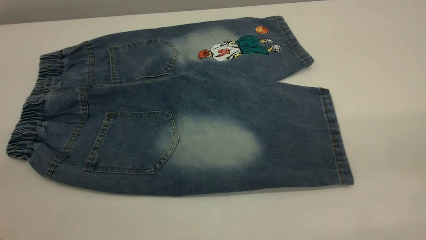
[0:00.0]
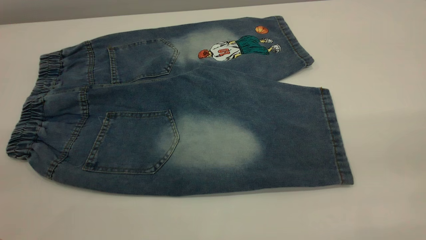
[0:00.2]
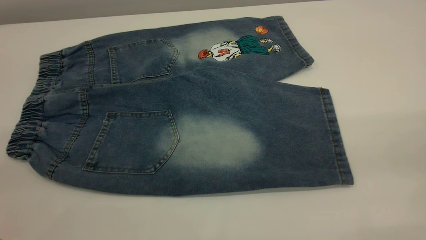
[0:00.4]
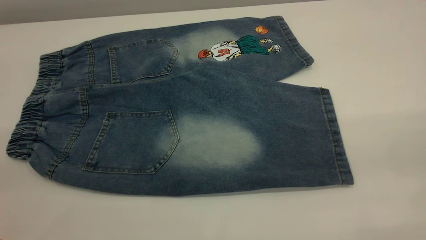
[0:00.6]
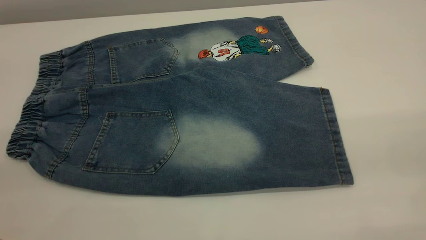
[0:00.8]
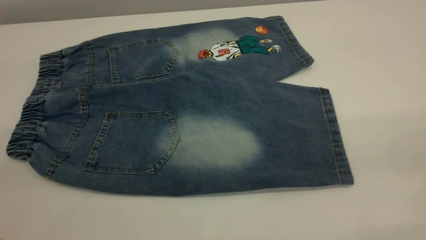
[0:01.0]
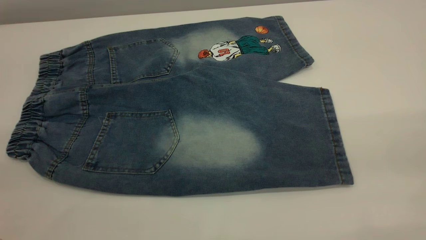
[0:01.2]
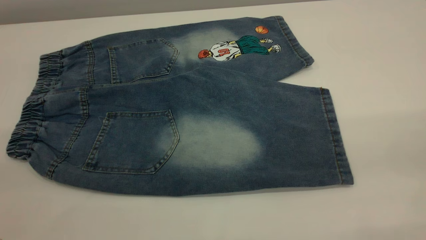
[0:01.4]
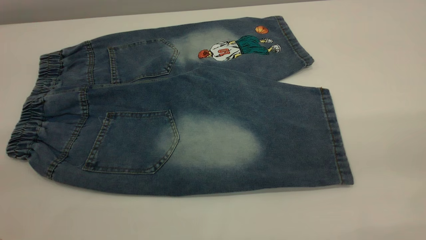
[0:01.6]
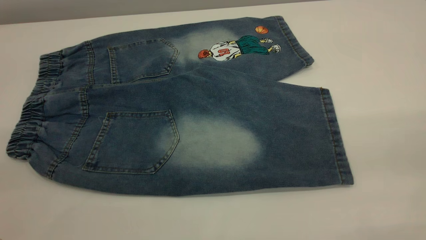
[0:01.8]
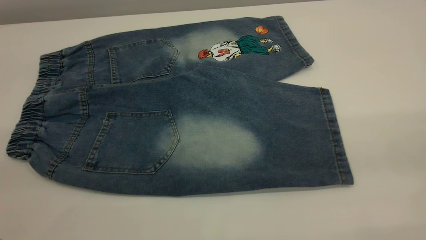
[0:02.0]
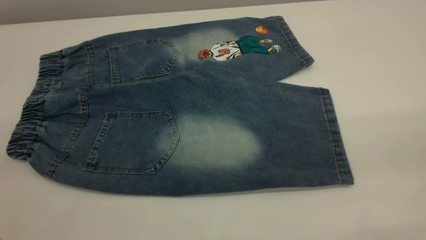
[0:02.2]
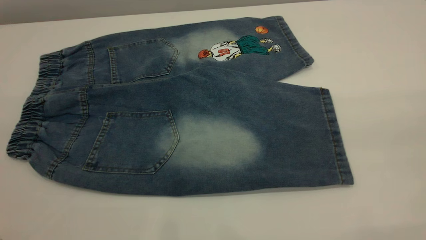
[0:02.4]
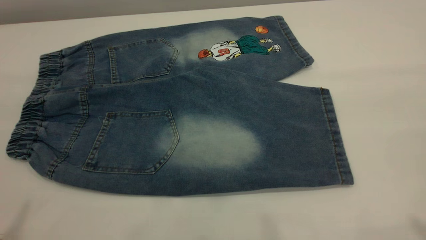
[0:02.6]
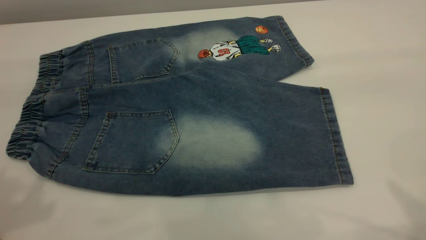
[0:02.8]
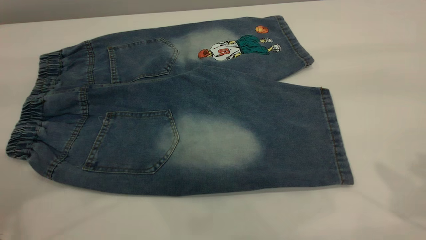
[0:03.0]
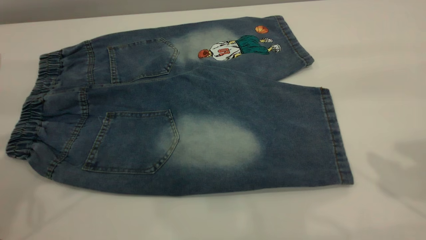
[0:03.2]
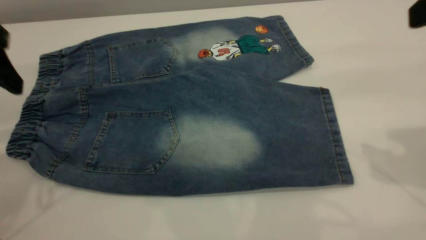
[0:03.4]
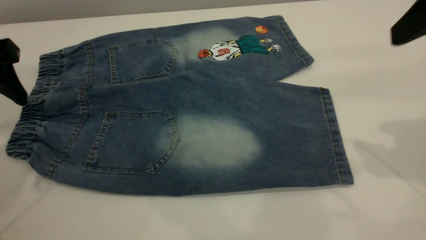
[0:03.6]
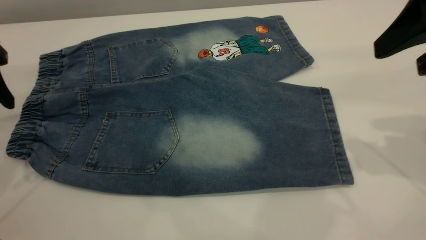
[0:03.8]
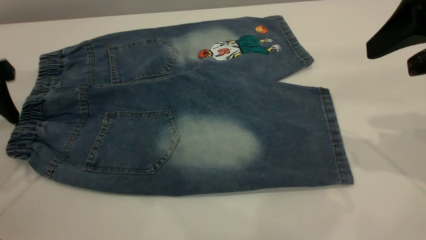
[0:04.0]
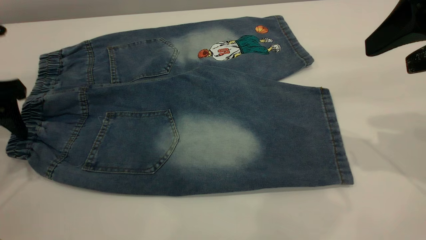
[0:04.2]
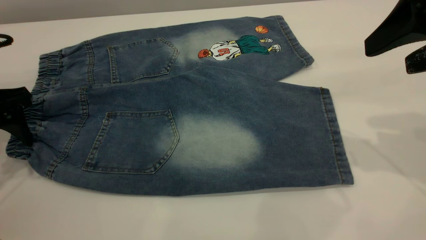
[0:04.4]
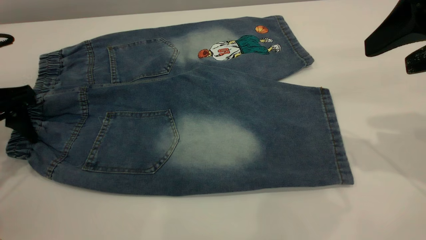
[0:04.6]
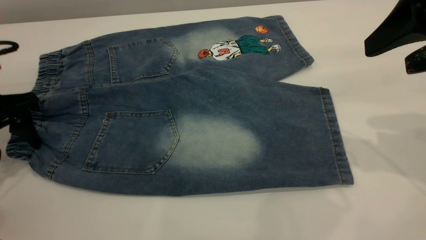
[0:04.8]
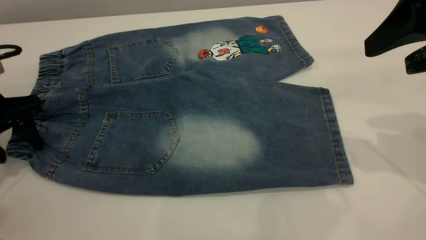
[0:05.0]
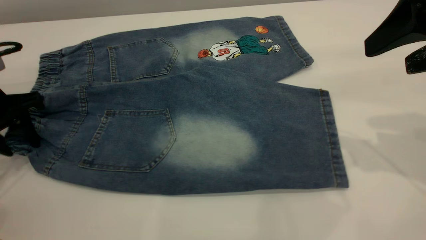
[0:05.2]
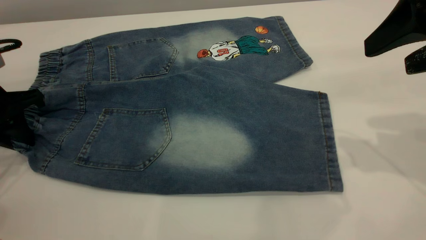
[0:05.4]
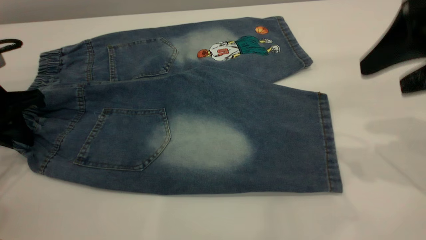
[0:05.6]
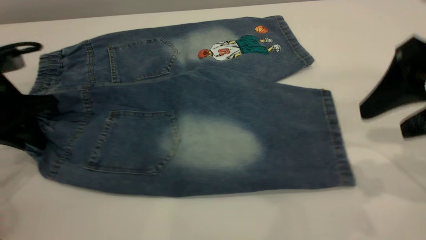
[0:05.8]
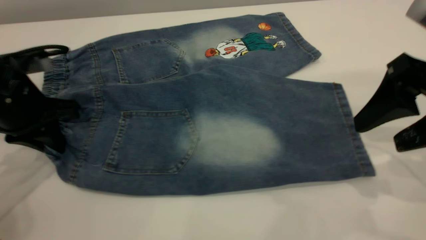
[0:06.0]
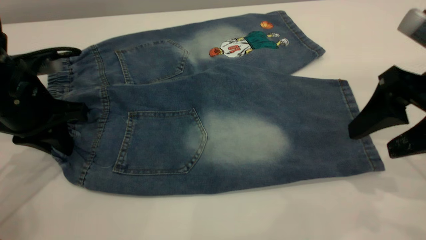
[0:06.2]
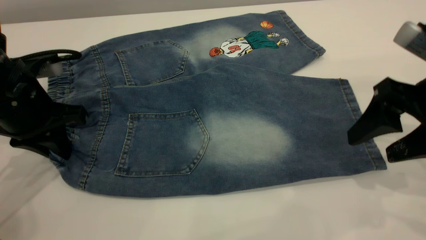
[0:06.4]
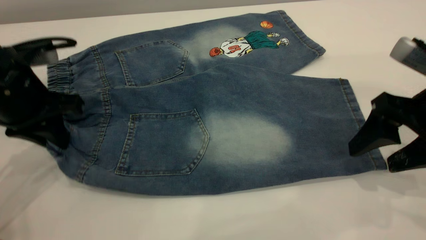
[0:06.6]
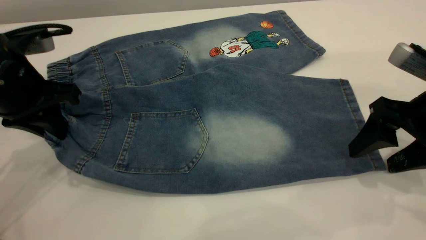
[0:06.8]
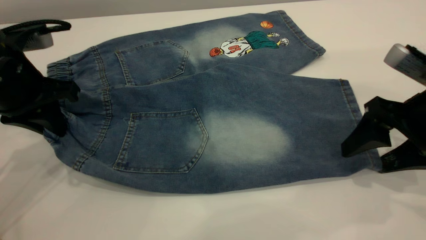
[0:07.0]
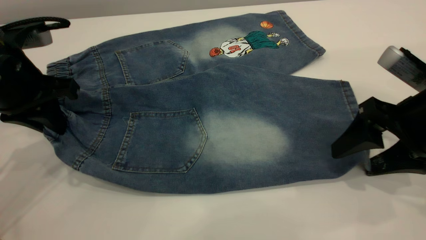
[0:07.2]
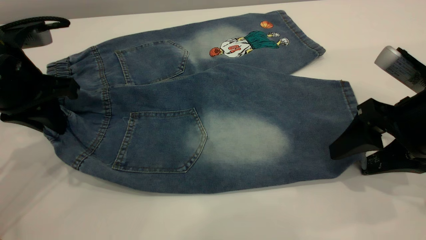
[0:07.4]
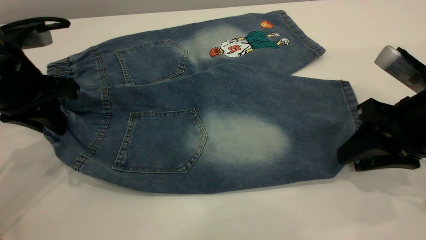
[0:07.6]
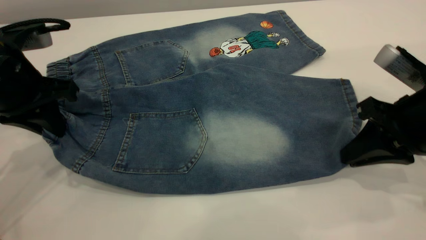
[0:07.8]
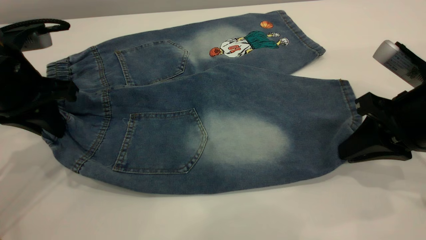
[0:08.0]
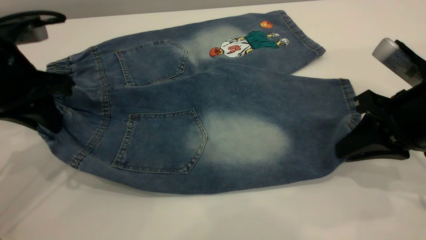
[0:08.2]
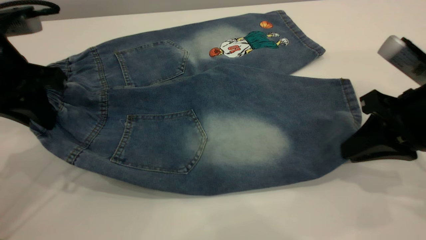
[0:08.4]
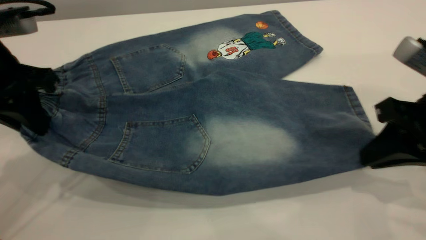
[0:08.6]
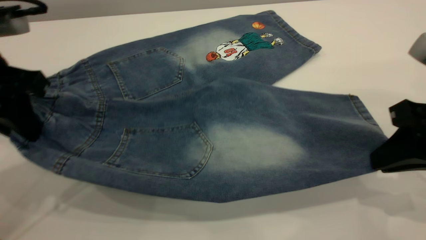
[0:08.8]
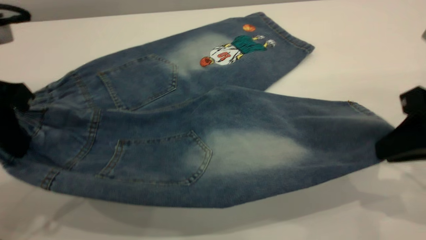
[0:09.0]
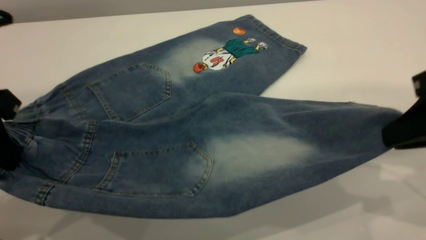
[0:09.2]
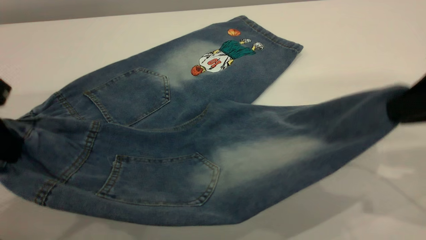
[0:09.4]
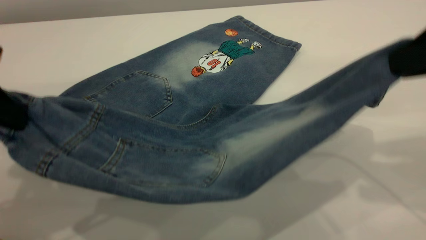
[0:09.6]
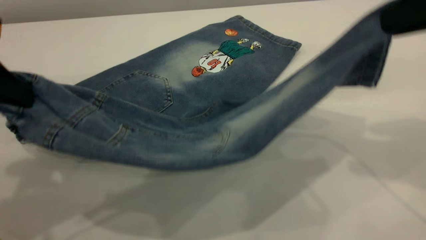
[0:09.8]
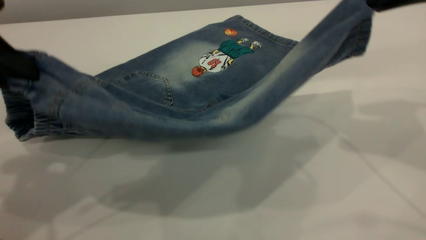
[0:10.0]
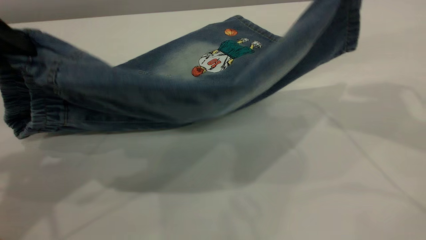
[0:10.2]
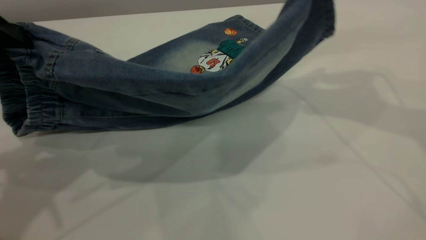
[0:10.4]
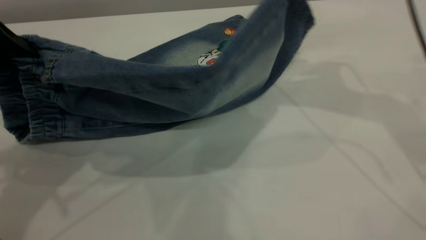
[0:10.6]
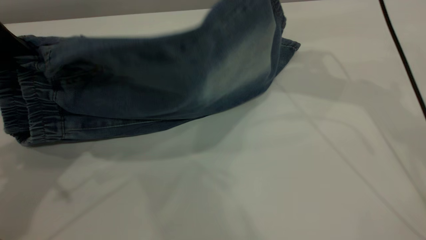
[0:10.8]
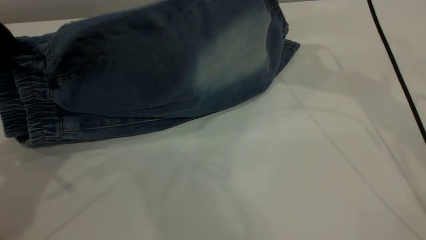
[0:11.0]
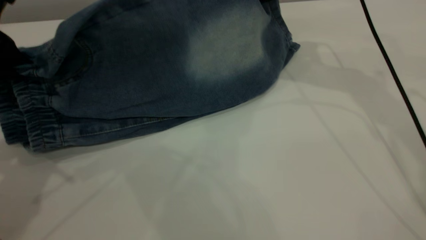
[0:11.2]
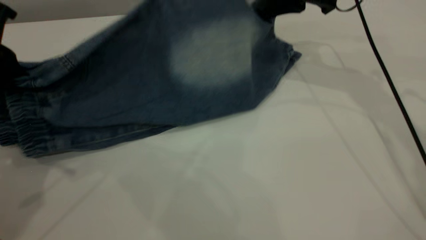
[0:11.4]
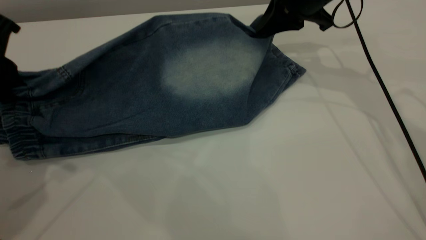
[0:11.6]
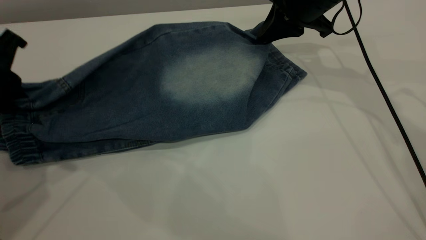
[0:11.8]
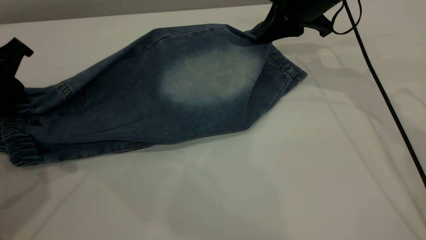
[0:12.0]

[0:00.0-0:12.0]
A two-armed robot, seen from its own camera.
0:00.0 to 0:01.6: Both grippers stay put.
0:03.0 to 0:04.4: The left gripper moves downward and forward, some 20 cm. The right gripper is displaced downward and forward by about 10 cm.
0:04.4 to 0:06.0: The left gripper shifts about 5 cm to the right, and closes its fingers. The right gripper is displaced downward by approximately 5 cm.
0:06.0 to 0:07.6: The right gripper moves downward, some 5 cm, and closes its fingers.
0:07.6 to 0:09.0: The right gripper shifts approximately 5 cm upward, while the left gripper shifts roughly 10 cm backward and upward.
0:09.0 to 0:10.4: The left gripper moves upward, approximately 5 cm. Meanwhile the right gripper moves forward and upward, about 20 cm.
0:10.4 to 0:12.0: The left gripper goes approximately 10 cm downward. Meanwhile the right gripper moves downward and forward, roughly 15 cm.

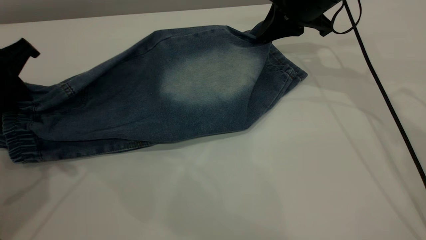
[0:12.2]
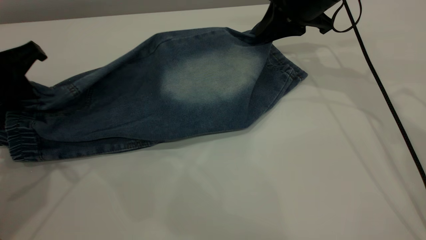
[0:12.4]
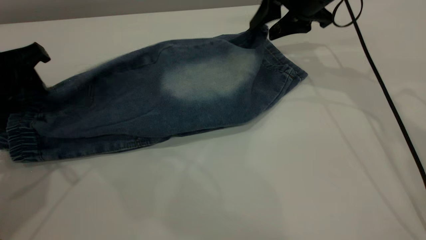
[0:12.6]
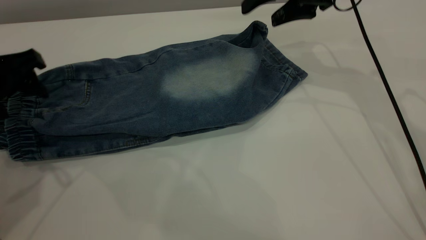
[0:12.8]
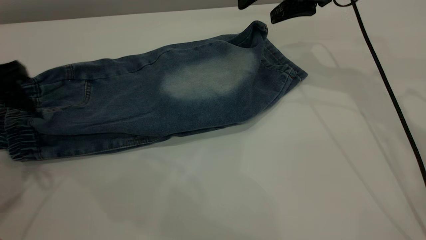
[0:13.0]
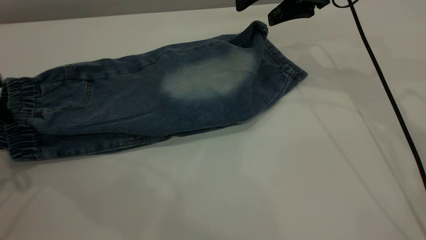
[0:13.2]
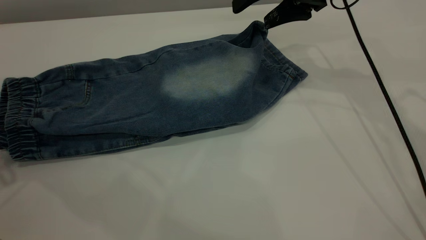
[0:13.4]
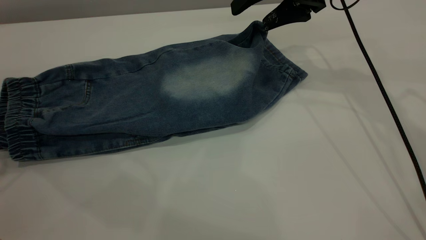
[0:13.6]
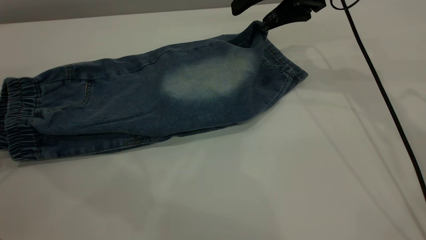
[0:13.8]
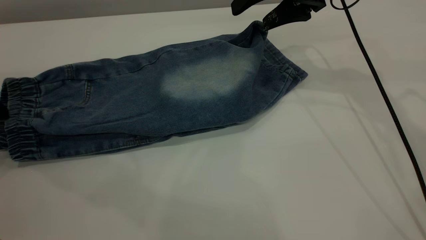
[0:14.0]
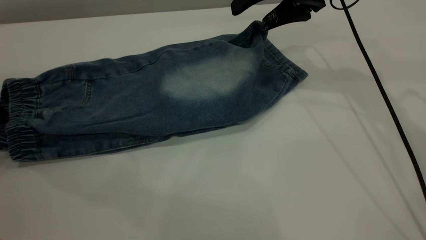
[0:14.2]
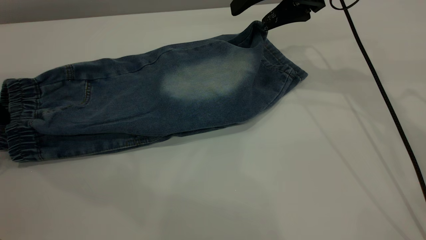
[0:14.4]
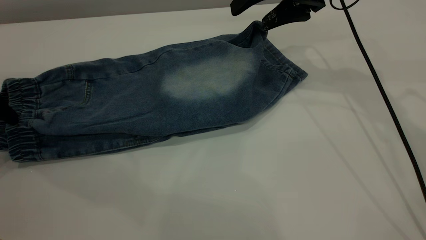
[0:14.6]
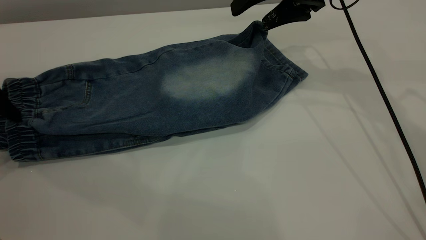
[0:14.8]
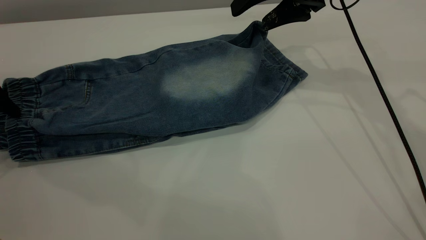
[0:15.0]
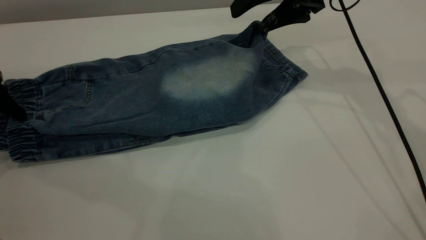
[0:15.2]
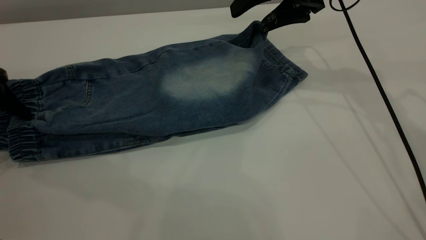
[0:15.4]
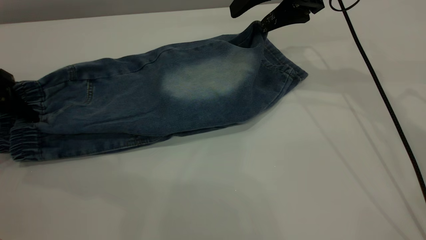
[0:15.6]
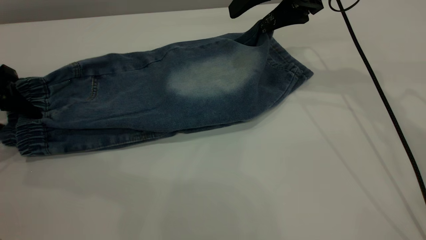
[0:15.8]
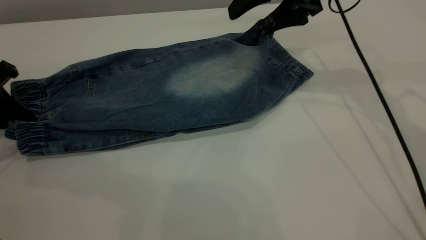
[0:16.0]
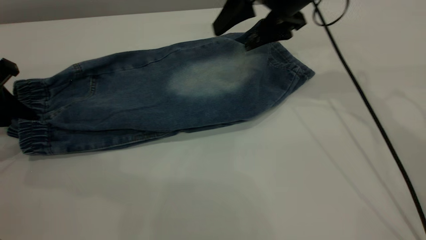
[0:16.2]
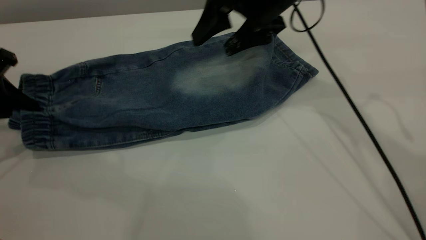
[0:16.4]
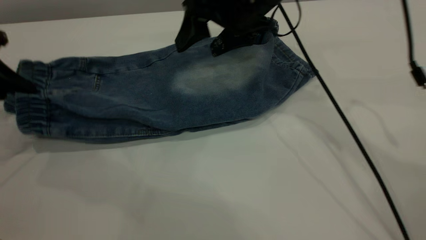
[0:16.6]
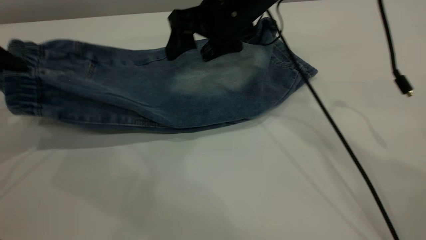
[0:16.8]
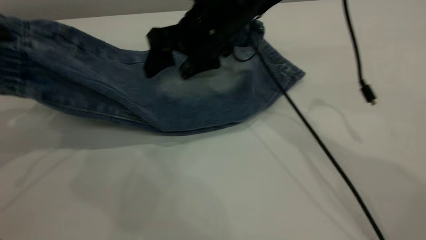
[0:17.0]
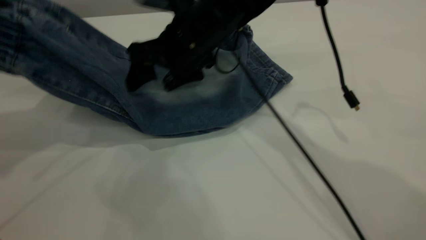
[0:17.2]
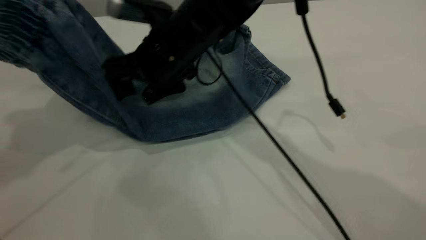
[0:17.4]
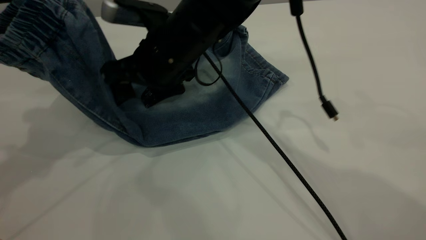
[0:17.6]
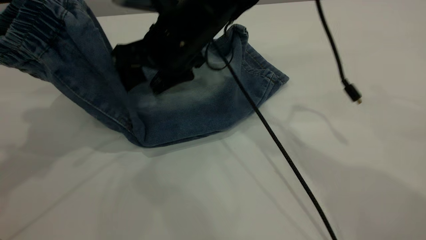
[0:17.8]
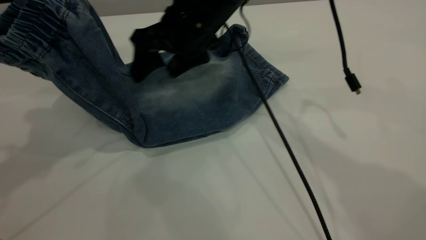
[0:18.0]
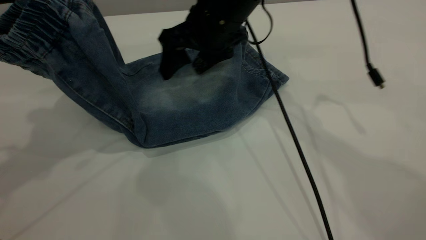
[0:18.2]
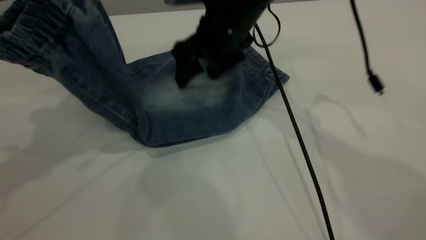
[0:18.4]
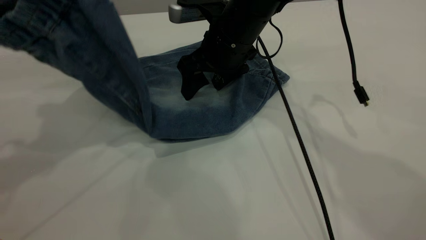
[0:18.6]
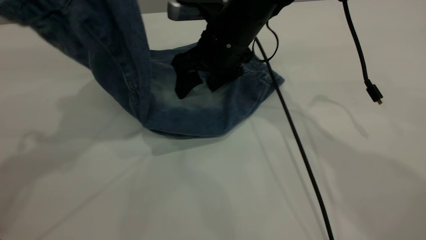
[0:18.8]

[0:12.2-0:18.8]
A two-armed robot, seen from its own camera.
0:12.2 to 0:13.8: The right gripper opens up. Meanwhile the left gripper is displaced to the left by some 10 cm, and opens.
0:13.8 to 0:15.4: The grippers stay close to where they were, moving slightly.
0:15.4 to 0:17.2: The left gripper goes roughly 15 cm upward, and closes; the right gripper is displaced to the left by roughly 20 cm.
0:17.2 to 0:18.8: The left gripper heads to the right, covering approximately 10 cm, while the right gripper moves about 5 cm.
